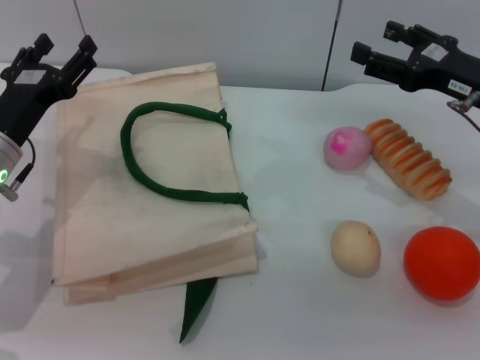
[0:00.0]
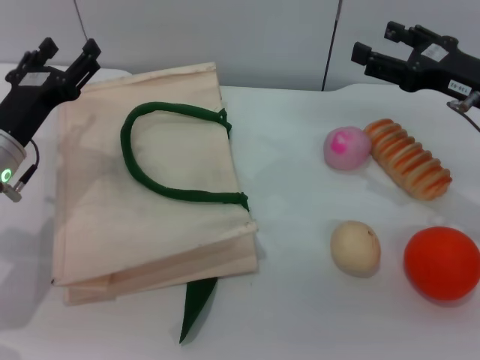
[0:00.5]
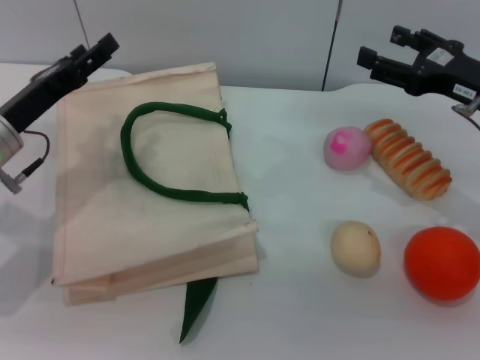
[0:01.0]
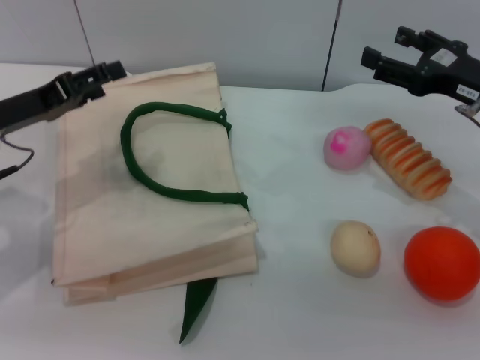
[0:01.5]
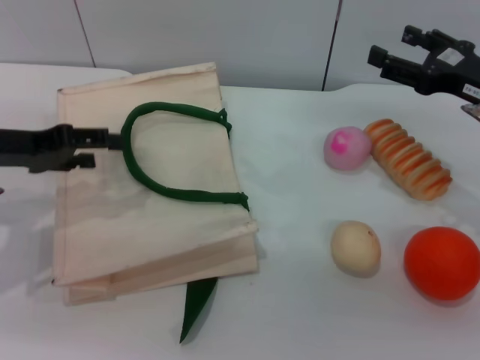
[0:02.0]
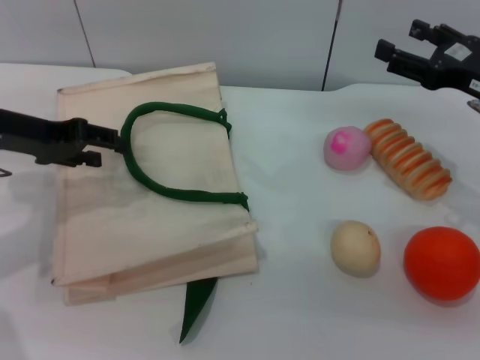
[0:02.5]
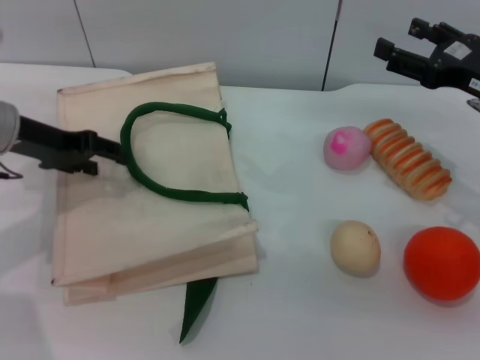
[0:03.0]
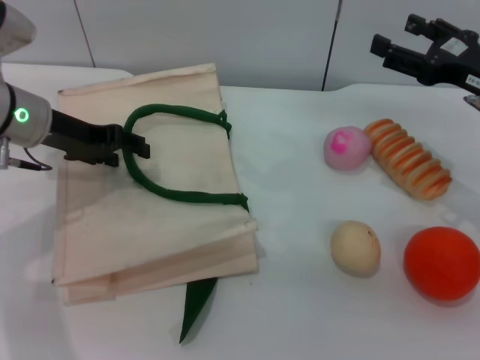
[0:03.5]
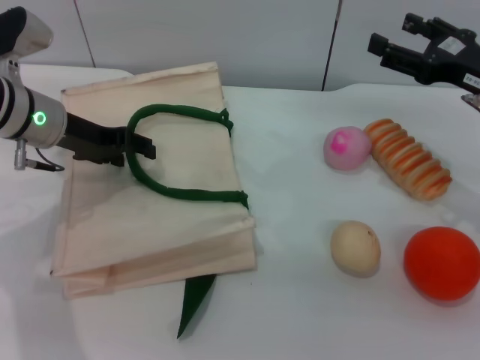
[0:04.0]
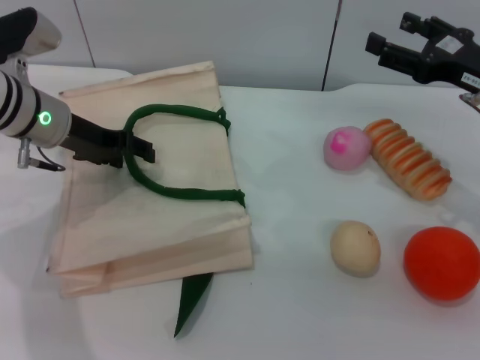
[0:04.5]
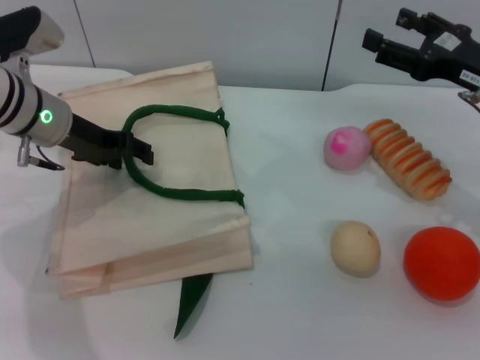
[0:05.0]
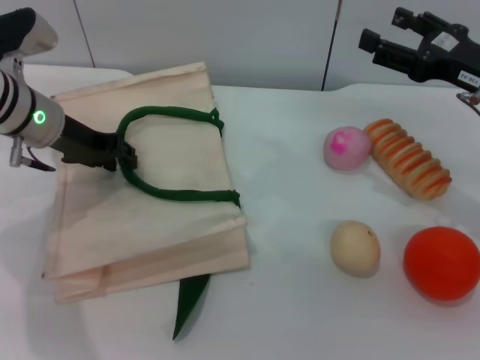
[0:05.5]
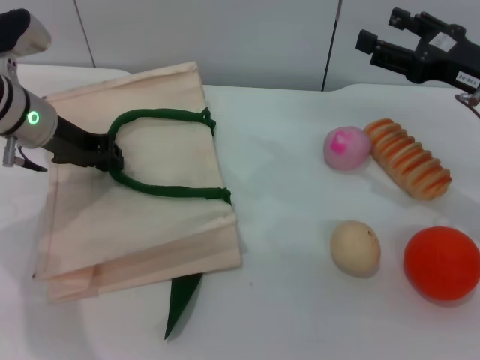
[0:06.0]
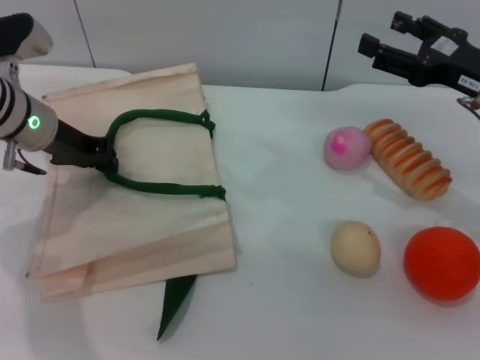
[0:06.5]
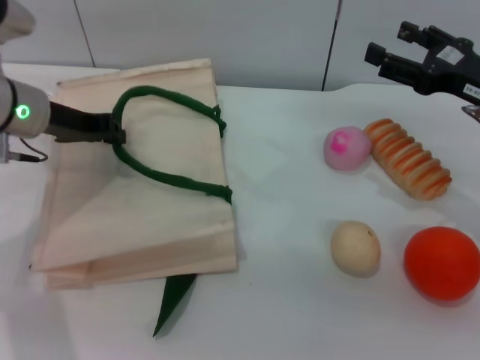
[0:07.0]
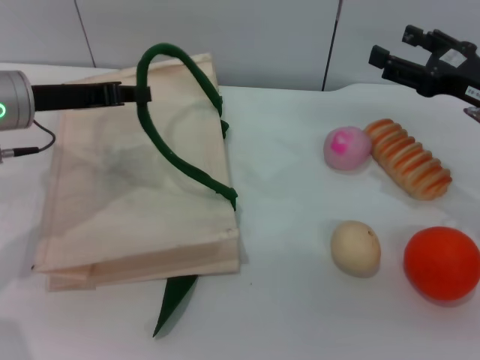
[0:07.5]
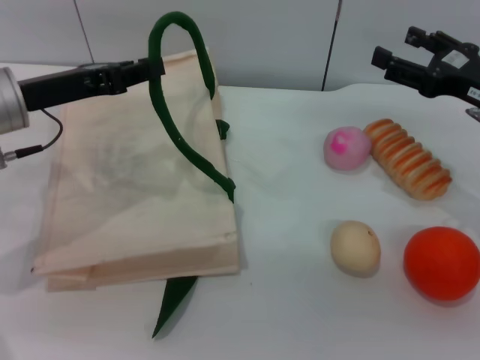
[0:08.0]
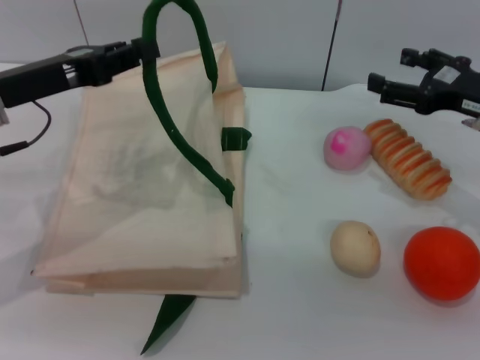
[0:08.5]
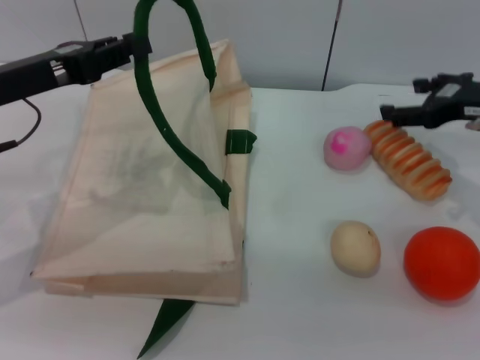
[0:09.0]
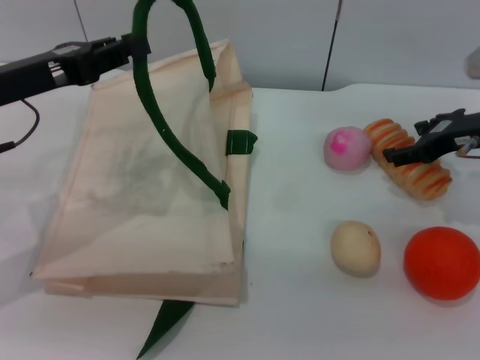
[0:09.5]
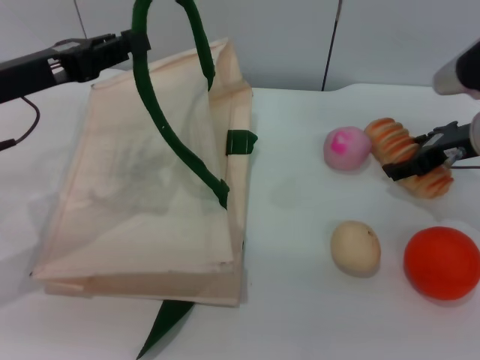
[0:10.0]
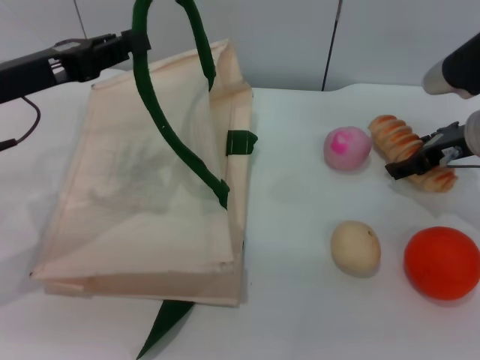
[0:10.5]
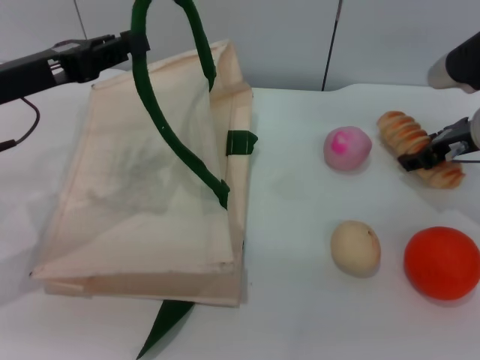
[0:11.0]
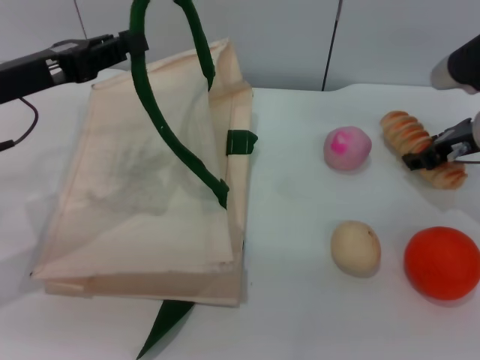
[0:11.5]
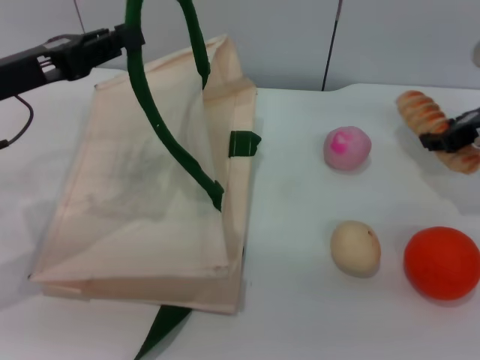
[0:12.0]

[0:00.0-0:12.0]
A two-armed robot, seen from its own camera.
Task of the whole recording: pick up the bread and egg yolk pastry from the table and place it in the white handbag.
Step, 0:00.0 to 0:08.0: Lift the woven bag with the left gripper to open it.
0:00.0 to 0:02.0: The left gripper goes approximately 5 cm upward.
0:02.0 to 0:04.0: The left gripper moves forward and to the right, approximately 10 cm.
0:04.0 to 0:06.0: The left gripper closes its fingers.
0:06.0 to 0:08.0: The left gripper goes approximately 5 cm backward.
0:08.0 to 0:10.0: The right gripper shifts by about 5 cm.
0:10.0 to 0:12.0: The right gripper closes.

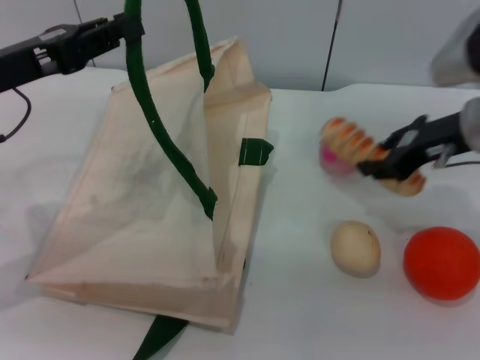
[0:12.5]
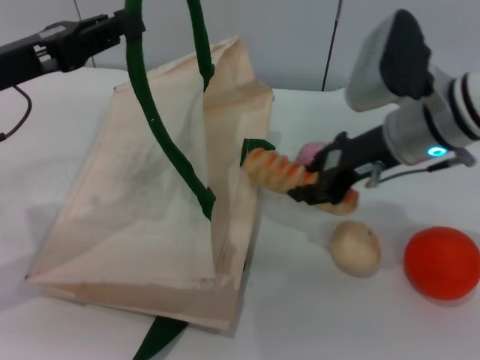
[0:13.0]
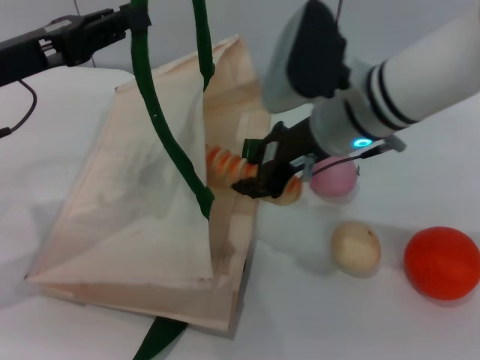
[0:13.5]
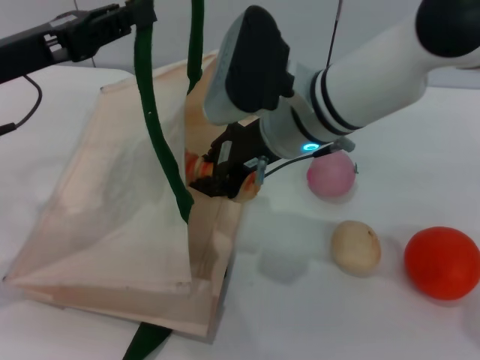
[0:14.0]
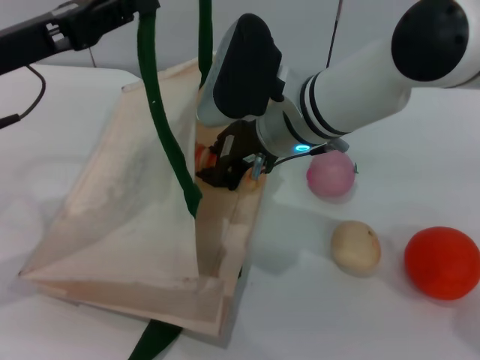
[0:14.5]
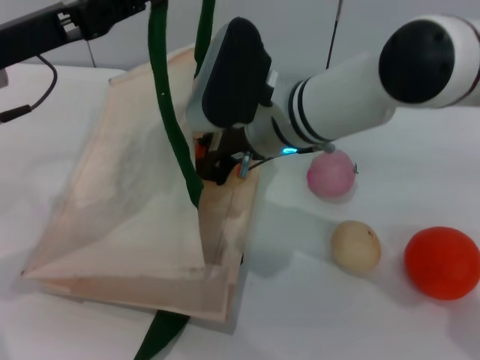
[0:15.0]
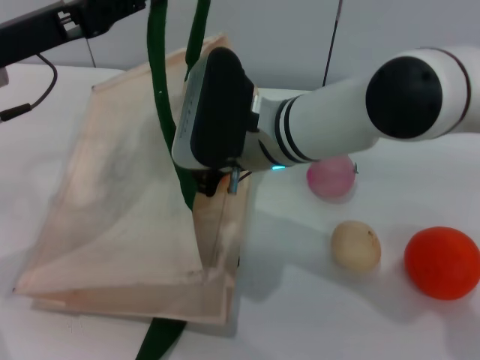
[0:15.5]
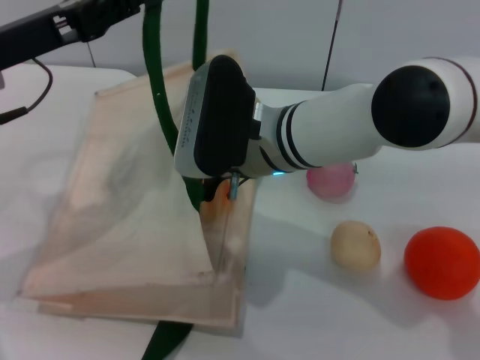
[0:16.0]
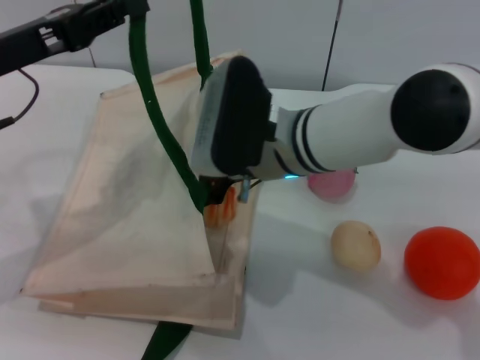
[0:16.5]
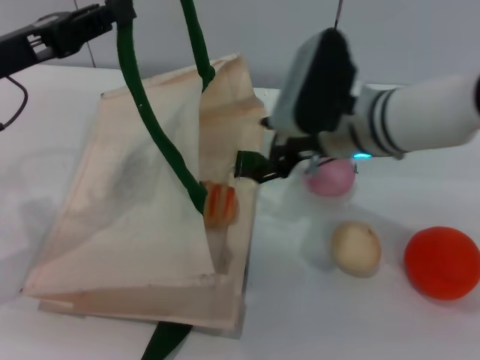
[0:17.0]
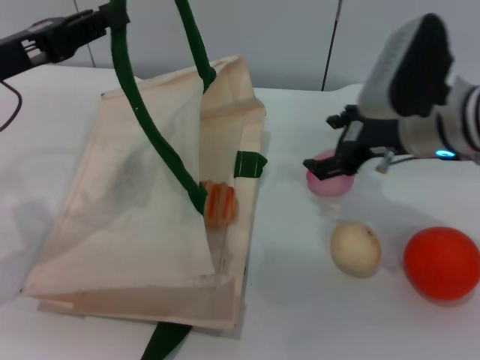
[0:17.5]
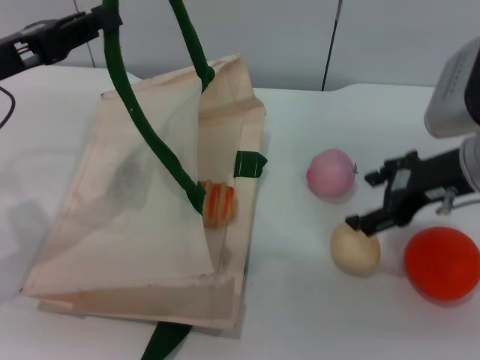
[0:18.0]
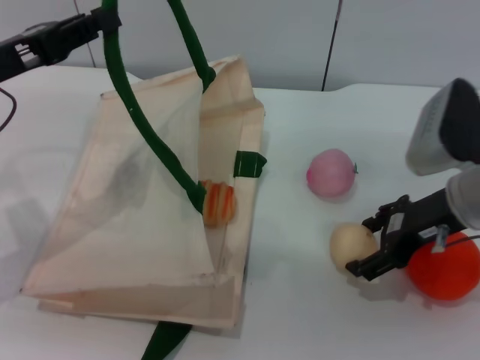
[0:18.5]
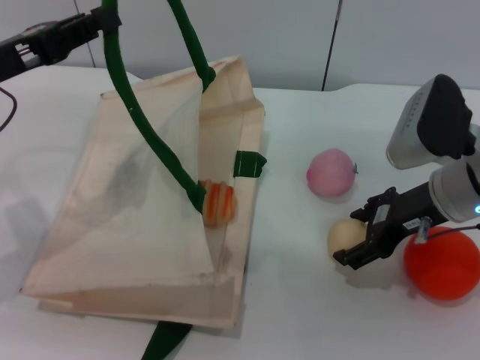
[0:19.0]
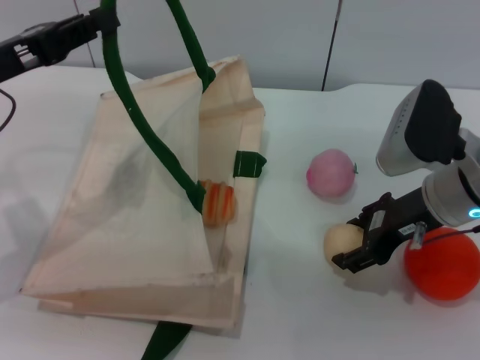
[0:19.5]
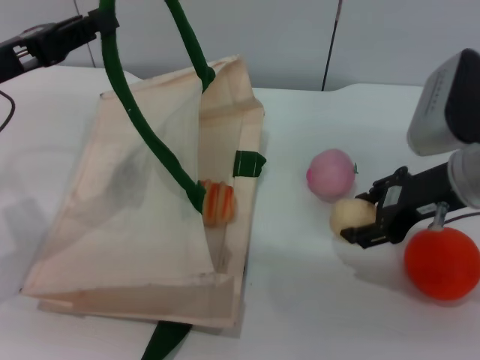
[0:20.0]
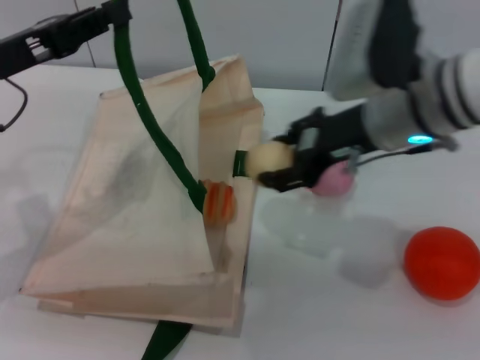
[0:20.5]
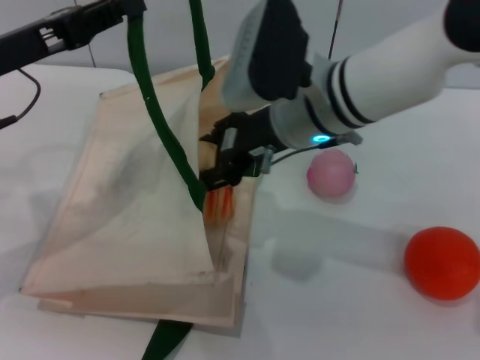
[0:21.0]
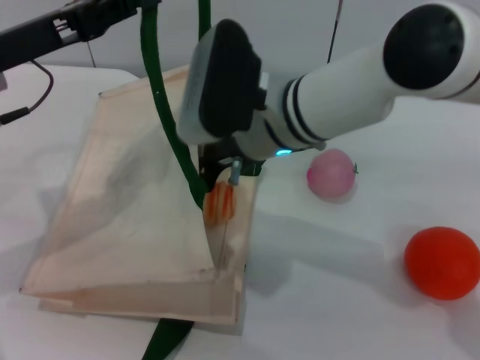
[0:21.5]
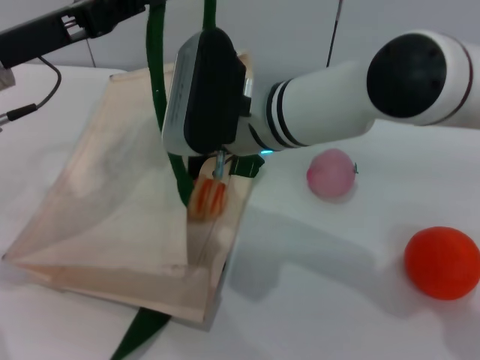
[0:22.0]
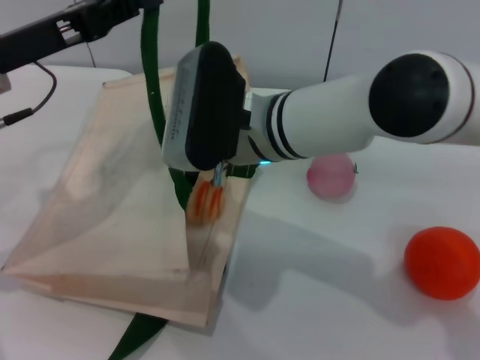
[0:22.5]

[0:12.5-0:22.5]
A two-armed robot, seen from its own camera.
Task of the whole recording: pick up the bread and egg yolk pastry from the table and place it in the white handbag.
Step, 0:12.5 to 0:16.5: Place the bread into the woven bag with the right gripper.
Step, 0:17.0 to 0:20.0: Pick up the egg yolk pastry with the right gripper.
0:12.5 to 0:14.5: The right gripper is displaced to the left by some 20 cm.
0:14.5 to 0:16.5: The right gripper opens up.
0:16.5 to 0:18.5: The right gripper moves to the right, roughly 20 cm.
0:18.5 to 0:20.5: The right gripper heads to the left and upward, covering some 10 cm, and closes its fingers.
0:20.5 to 0:22.5: The right gripper goes about 10 cm to the left.

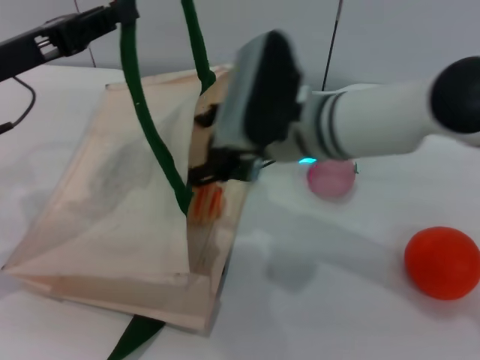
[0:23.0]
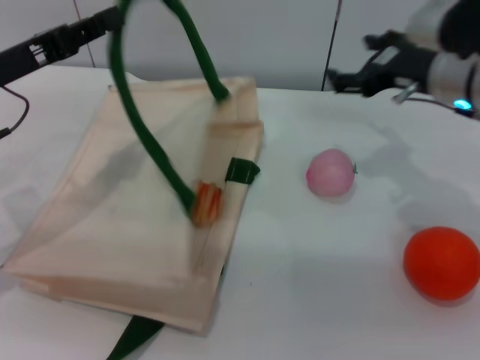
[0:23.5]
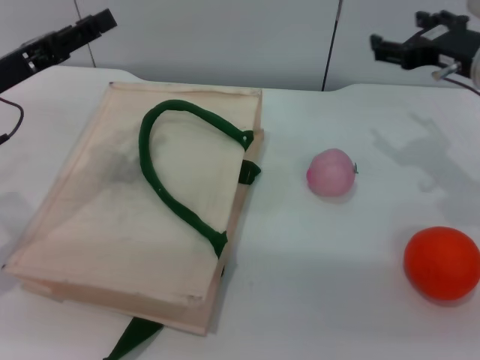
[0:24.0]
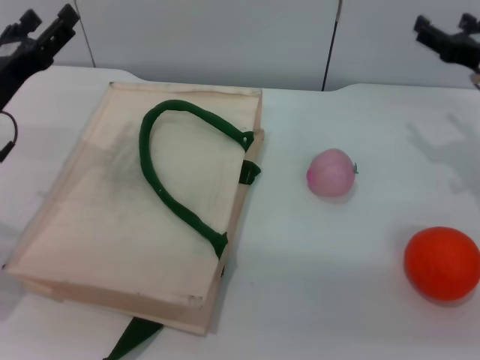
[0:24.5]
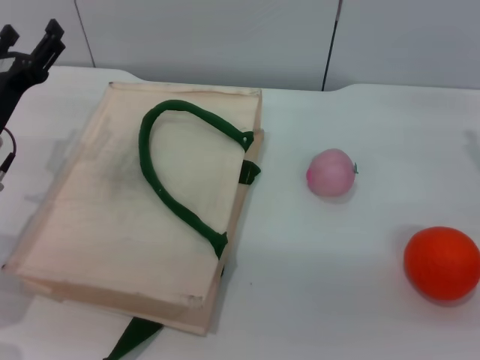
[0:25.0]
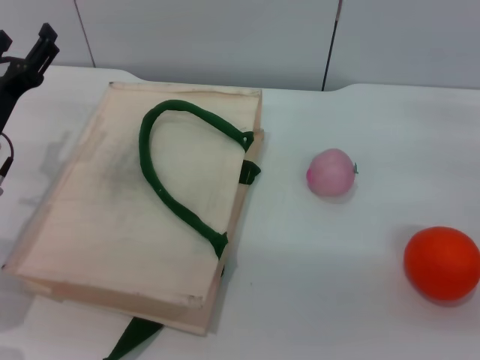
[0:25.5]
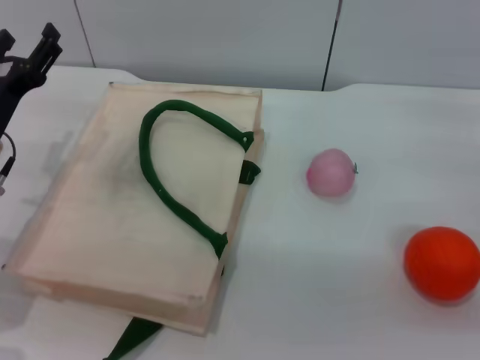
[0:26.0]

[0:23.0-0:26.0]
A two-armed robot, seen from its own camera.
Task of the whole recording: pick up the bread and egg yolk pastry from the table and place it in the white handbag.
0:23.0 to 0:24.5: The right gripper goes some 20 cm to the right, while the left gripper shifts about 5 cm downward, and opens.
0:24.5 to 0:26.0: The right gripper is displaced backward by some 5 cm.
